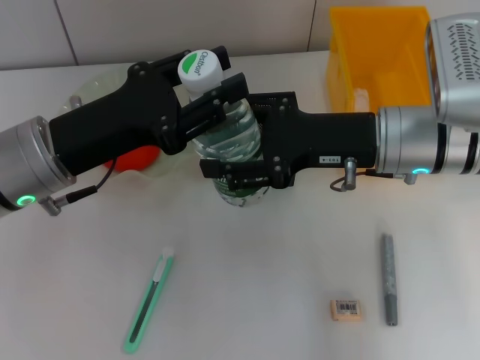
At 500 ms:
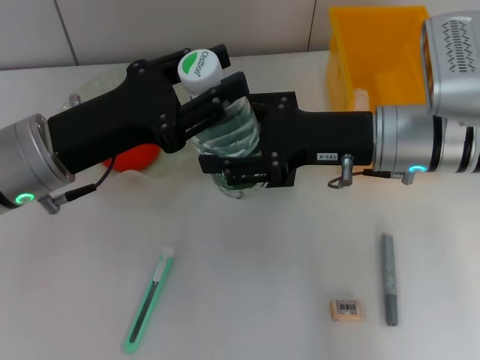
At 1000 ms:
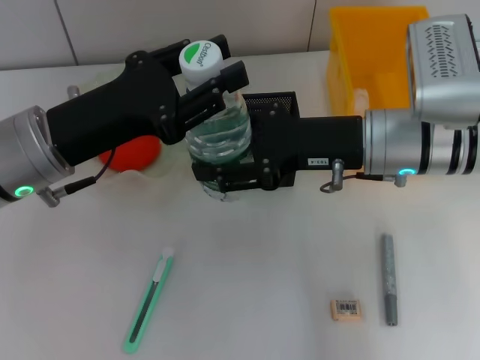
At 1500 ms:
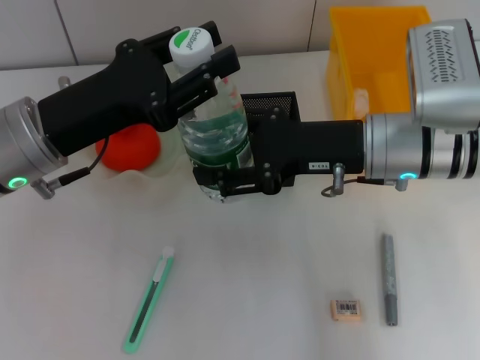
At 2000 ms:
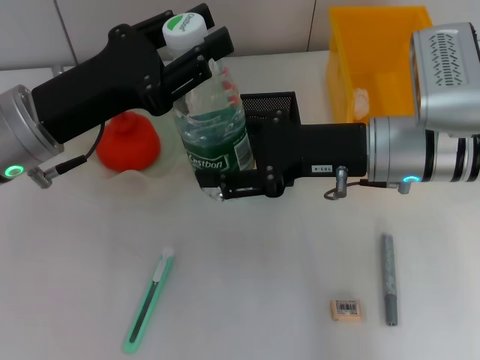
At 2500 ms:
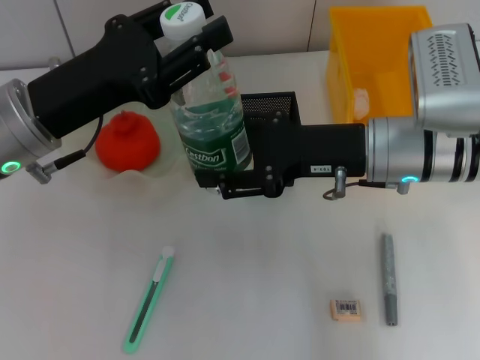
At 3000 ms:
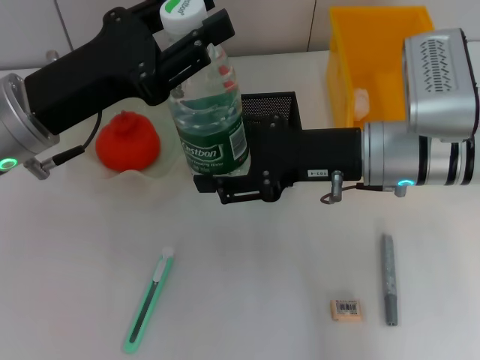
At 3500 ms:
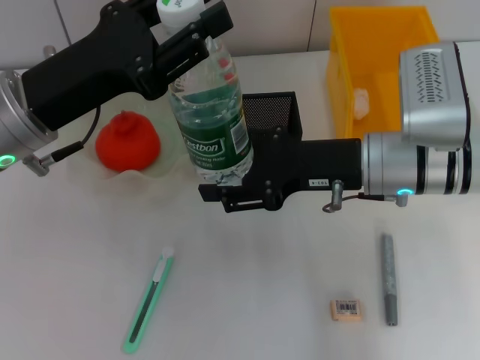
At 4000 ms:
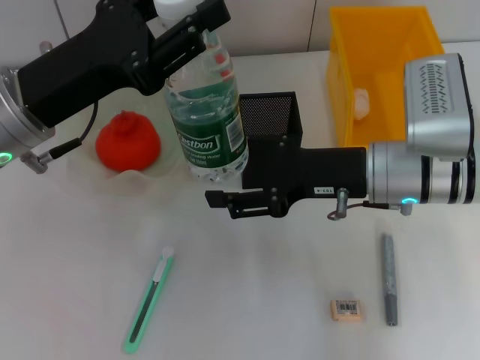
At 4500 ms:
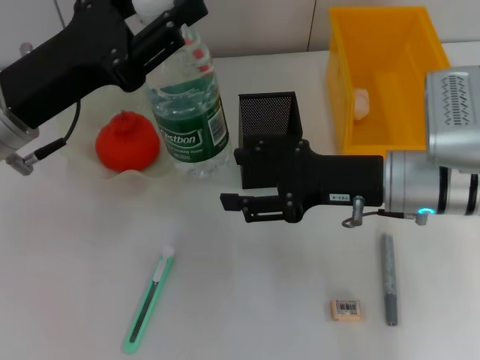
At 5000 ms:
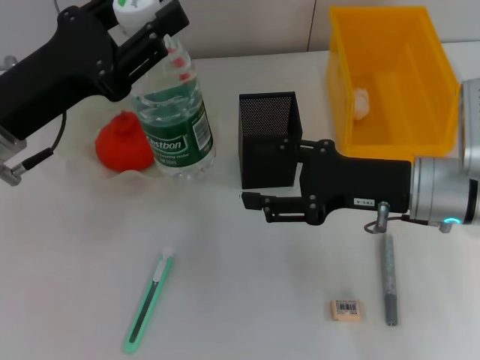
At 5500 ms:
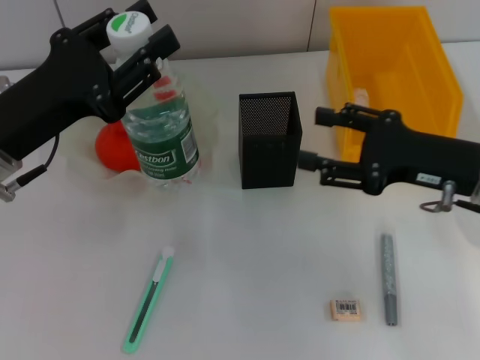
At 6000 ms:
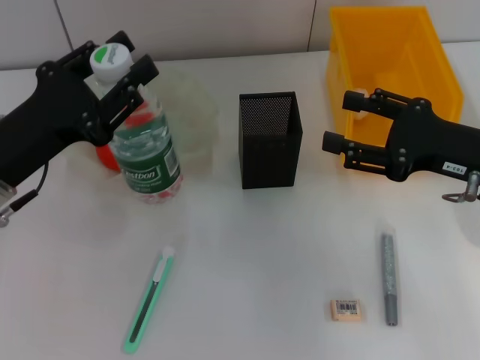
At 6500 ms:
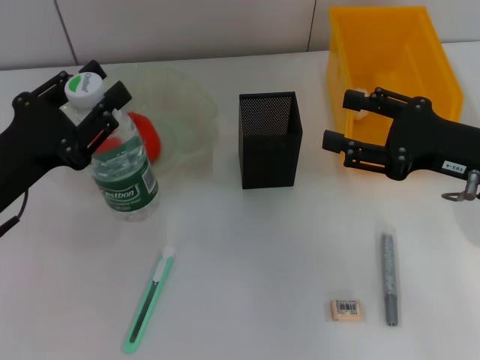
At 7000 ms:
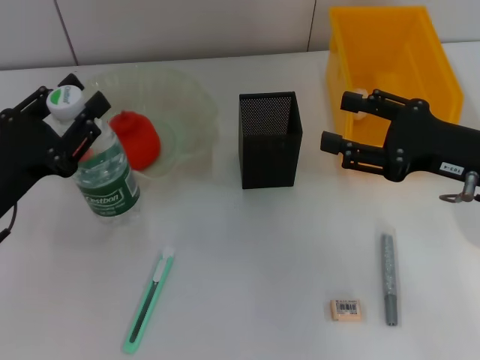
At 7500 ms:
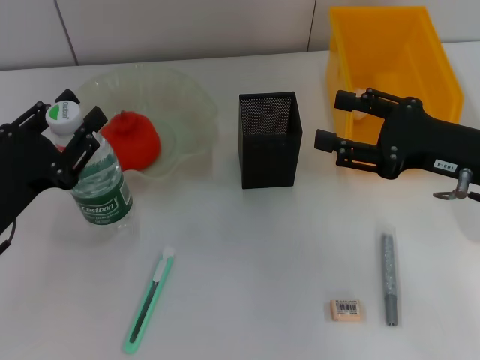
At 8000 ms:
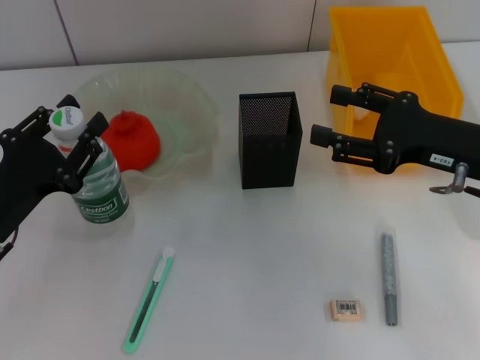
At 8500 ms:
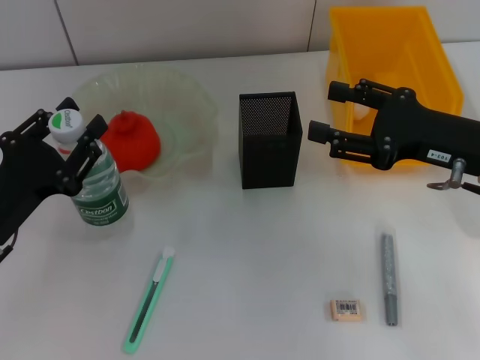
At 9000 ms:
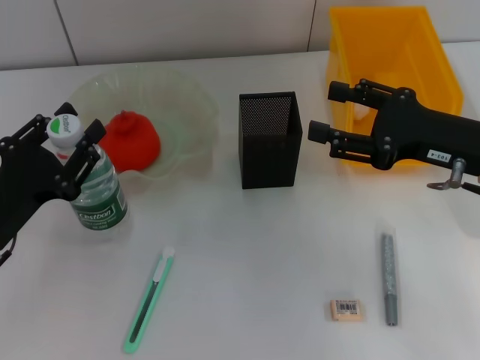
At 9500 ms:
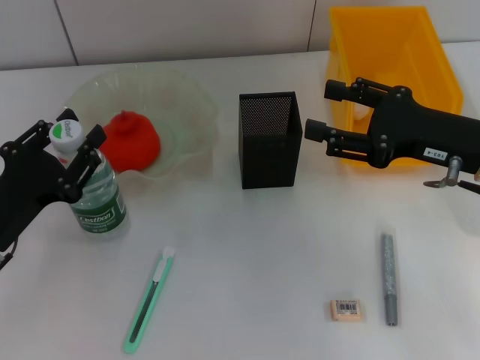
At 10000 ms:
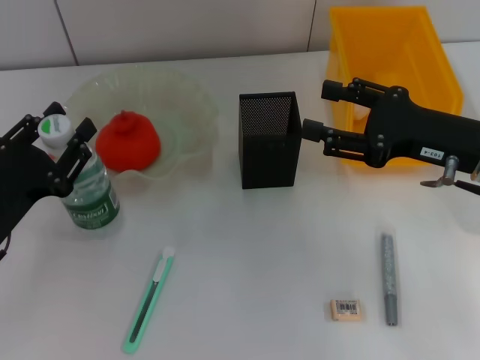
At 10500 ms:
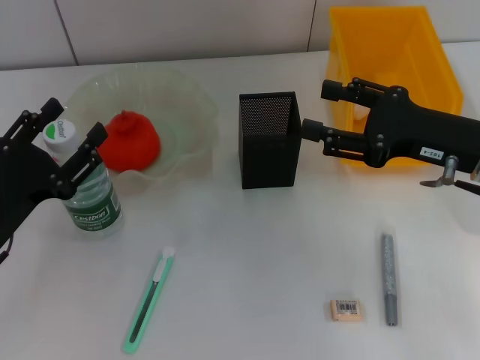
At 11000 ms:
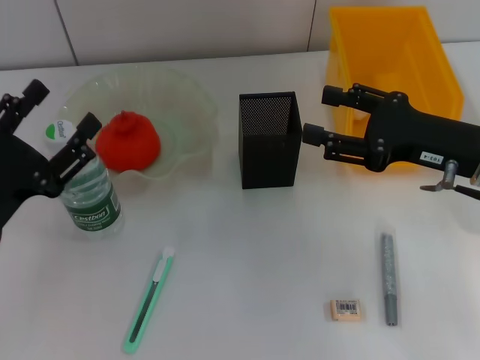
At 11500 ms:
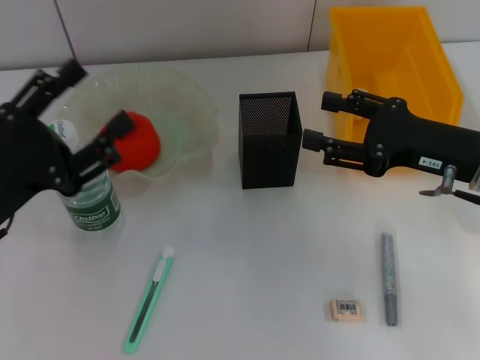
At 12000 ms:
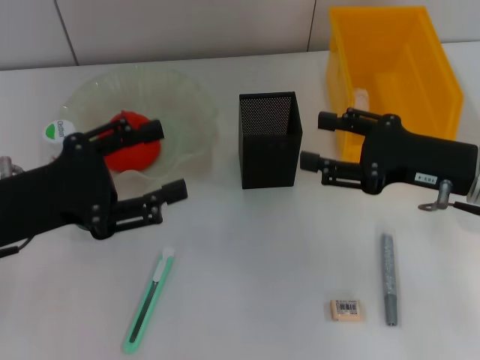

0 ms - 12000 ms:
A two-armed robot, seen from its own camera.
Step, 0 ms - 4000 ms: Pass the water bottle from the right hand to the left hand.
Step, 4500 ms - 10500 ms: Place the water bottle on the table with the left hand.
4000 ms - 6000 ms: The left gripper travels downward by about 5 cm; the right gripper shifts some 10 cm to the right.
6000 ms - 8000 ms: The left gripper heads downward, covering roughly 5 cm.
8000 ms - 10000 ms: The two grippers keep their place.
10000 ms - 12000 ms: The left gripper moves upward, approximately 10 cm, and opens up.

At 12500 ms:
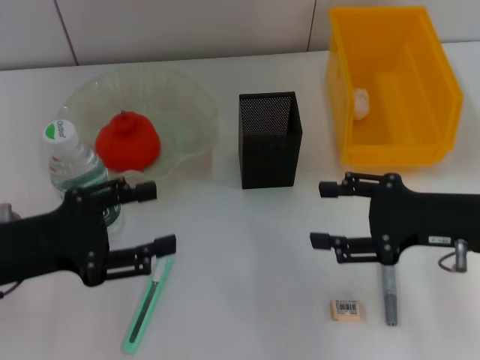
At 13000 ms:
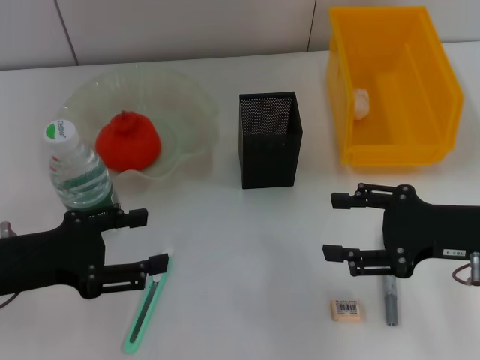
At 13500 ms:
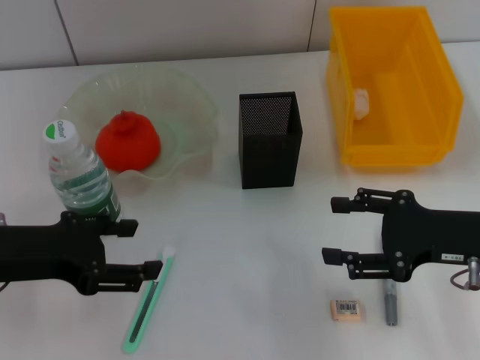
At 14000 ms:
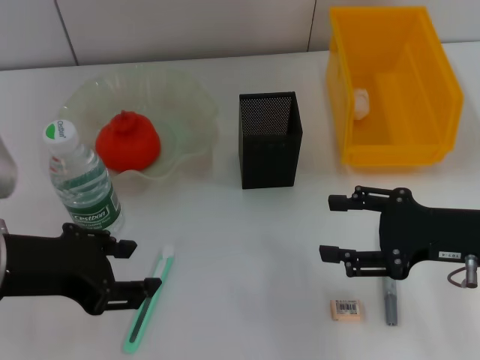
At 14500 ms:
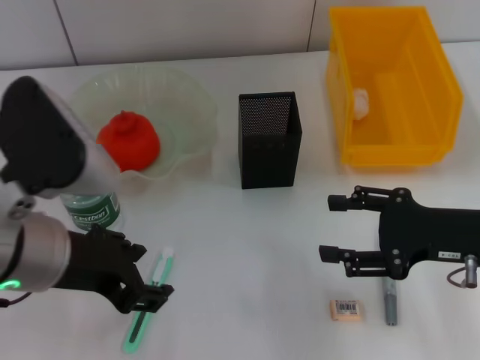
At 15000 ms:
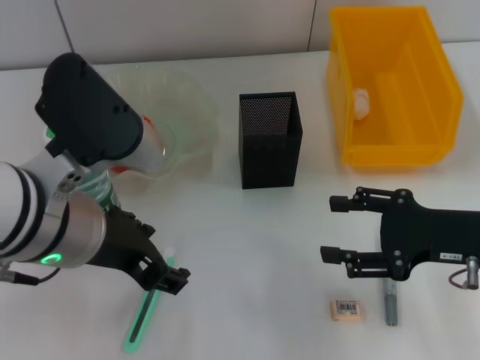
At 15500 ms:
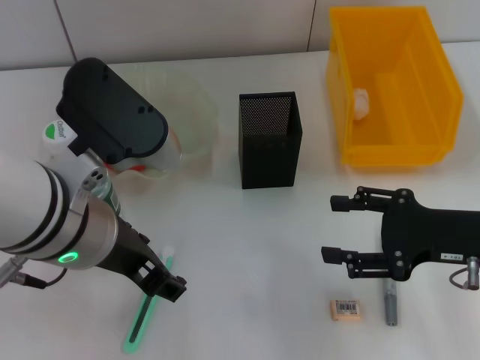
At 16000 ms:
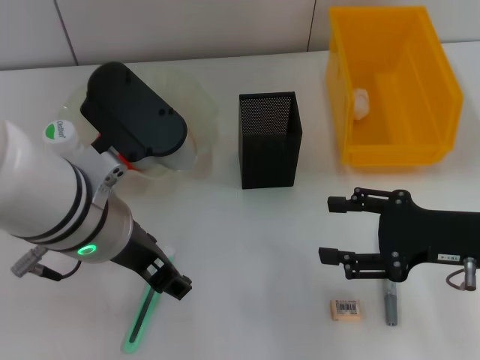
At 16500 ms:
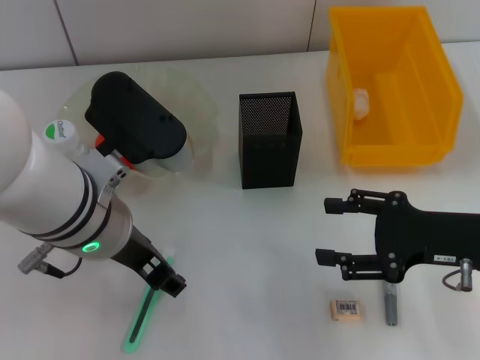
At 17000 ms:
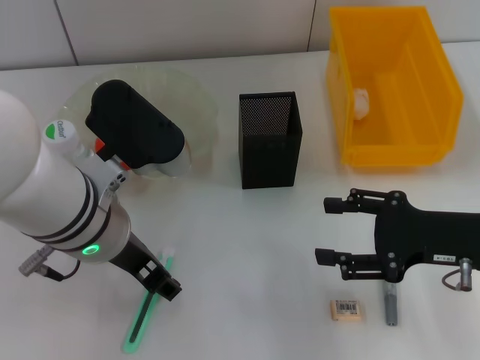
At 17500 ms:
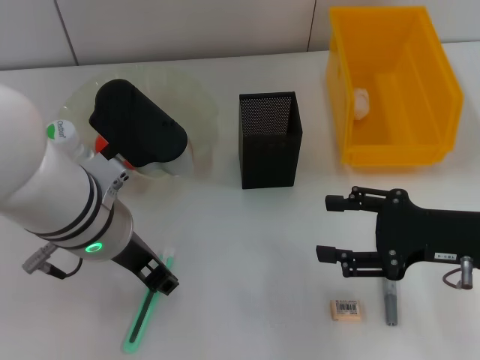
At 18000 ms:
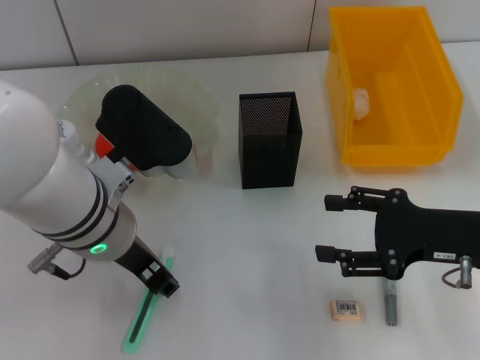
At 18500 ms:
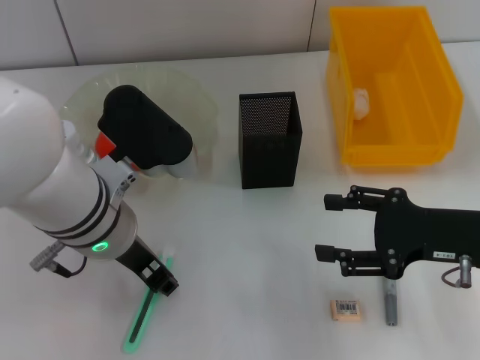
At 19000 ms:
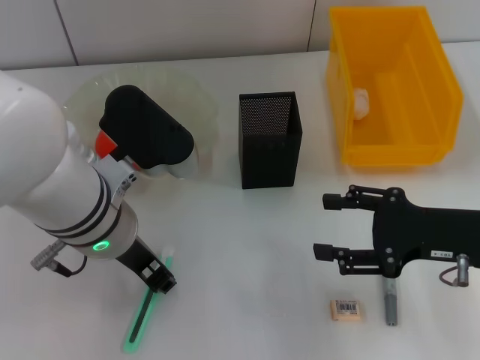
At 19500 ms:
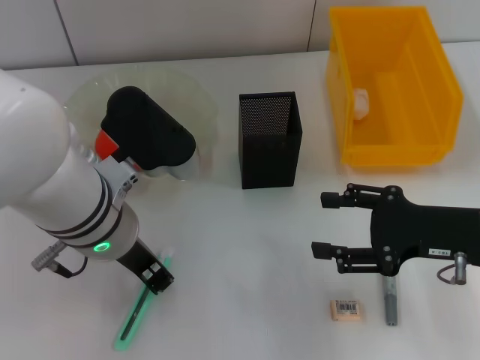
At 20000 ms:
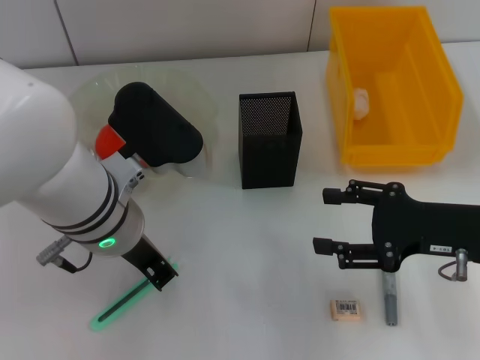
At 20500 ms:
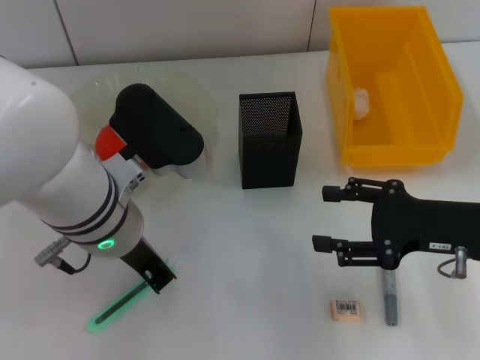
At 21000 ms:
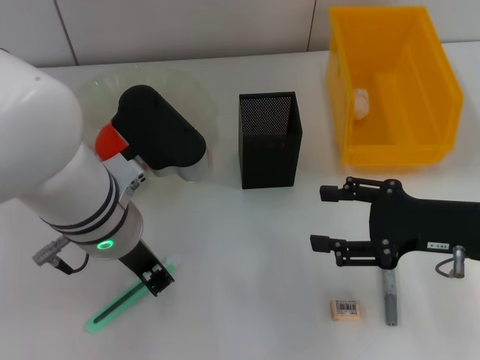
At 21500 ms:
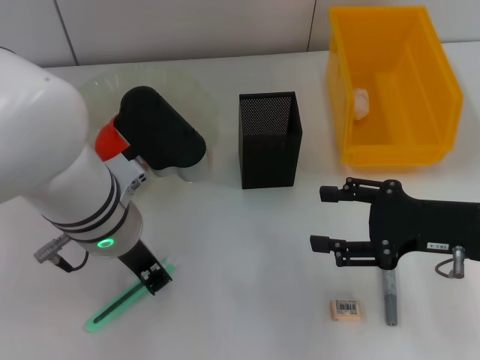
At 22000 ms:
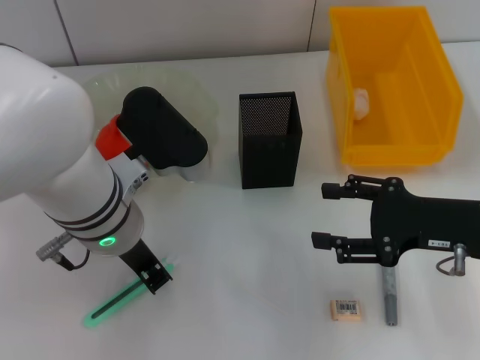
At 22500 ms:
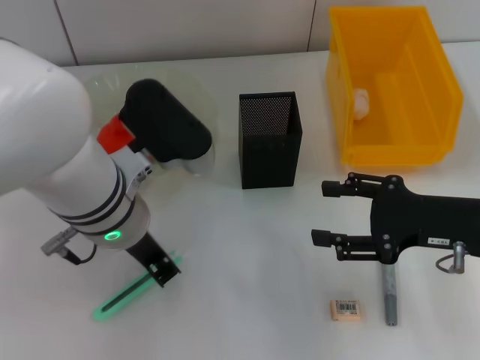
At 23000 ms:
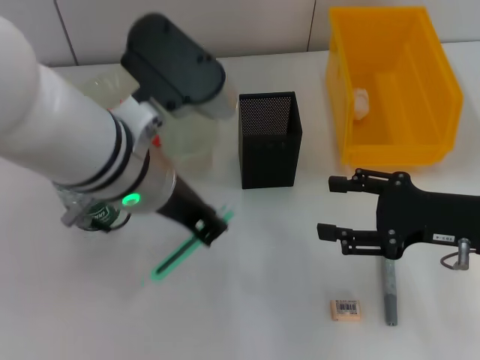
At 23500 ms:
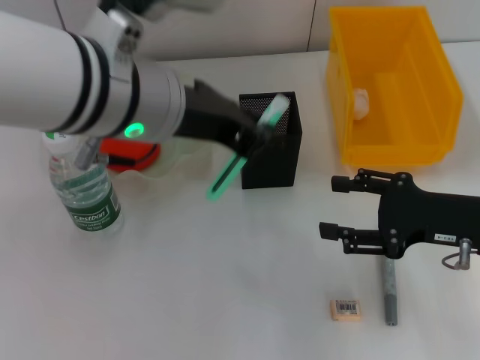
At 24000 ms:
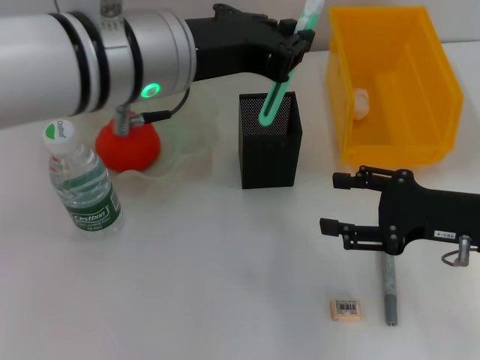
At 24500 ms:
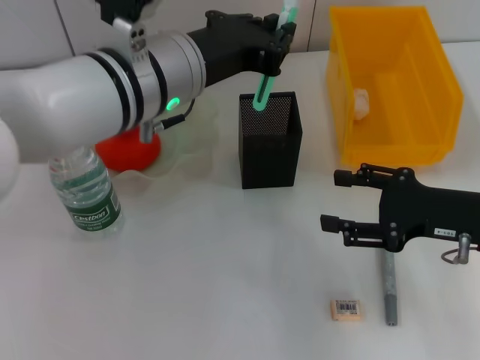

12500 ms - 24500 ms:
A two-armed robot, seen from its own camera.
Step, 12500 ms - 22000 ms: Grab the blue utility knife with the left hand.
12500 ms - 14500 ms: The left gripper goes about 10 cm to the right and upward.
14500 ms - 16500 ms: The left gripper changes place by about 5 cm.
16500 ms - 18500 ms: There are only small adjustments of the grippers.
18500 ms - 20500 ms: The left gripper closes its fingers.
20500 ms - 22500 ms: Both grippers stay about where they are.
22500 ms - 24500 ms: The left gripper is displaced upward by roughly 5 cm.

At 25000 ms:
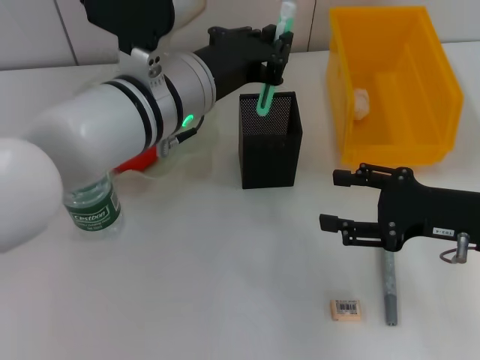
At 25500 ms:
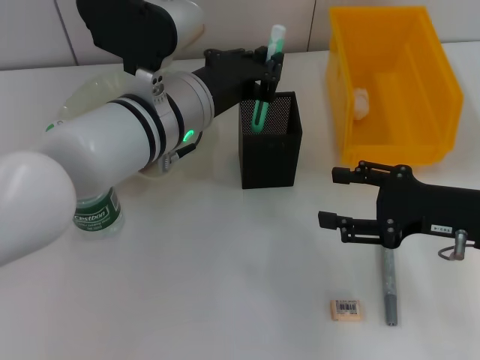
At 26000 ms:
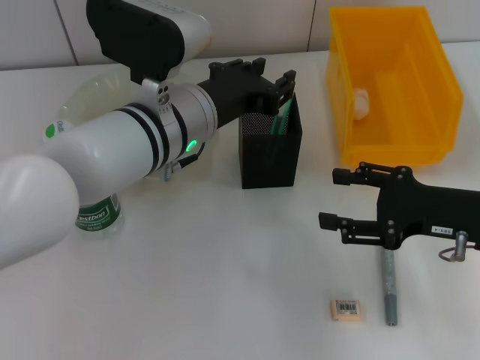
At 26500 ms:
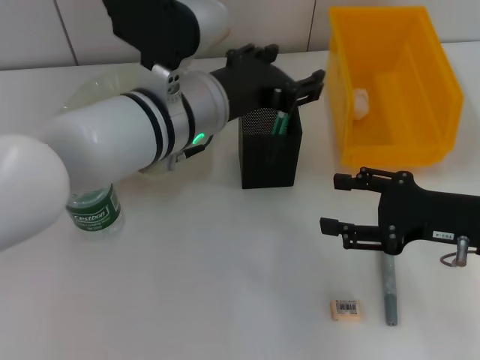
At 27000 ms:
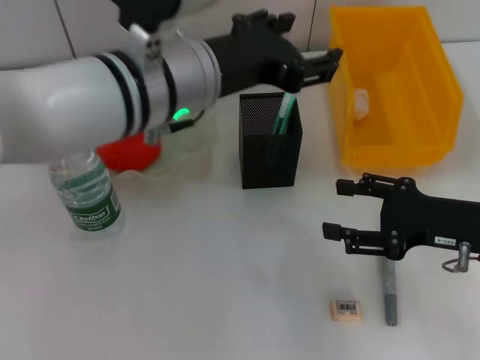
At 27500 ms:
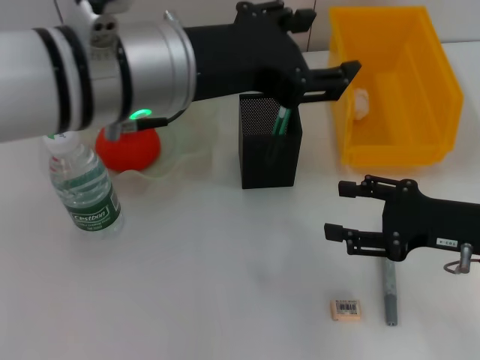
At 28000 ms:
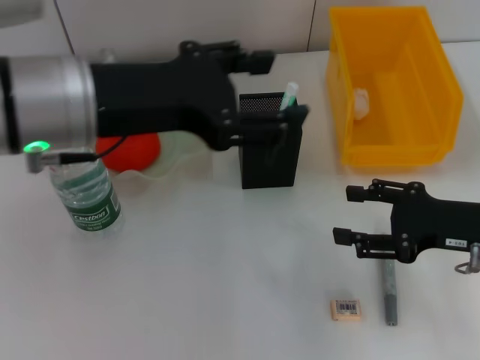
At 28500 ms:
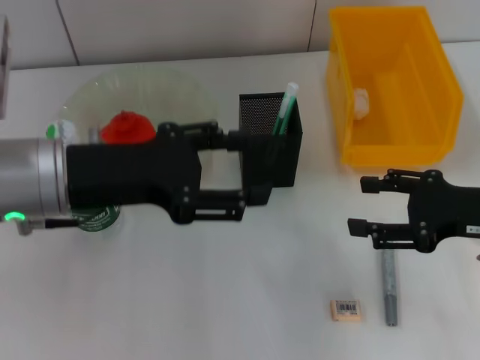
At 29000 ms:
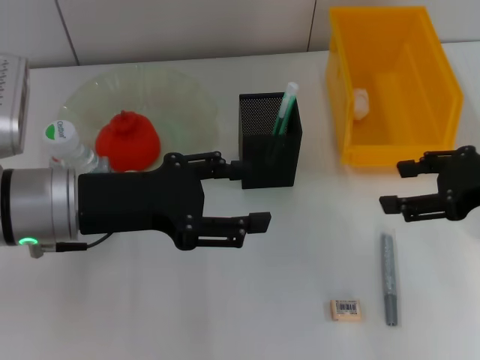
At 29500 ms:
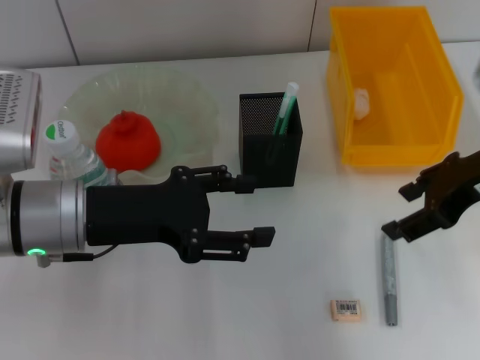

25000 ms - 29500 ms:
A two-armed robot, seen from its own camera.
25000 ms - 27000 ms: The left gripper opens.
27000 ms - 29500 ms: The left gripper heads to the left and downward, covering roughly 15 cm. Meanwhile the right gripper heads upward, covering some 10 cm.
